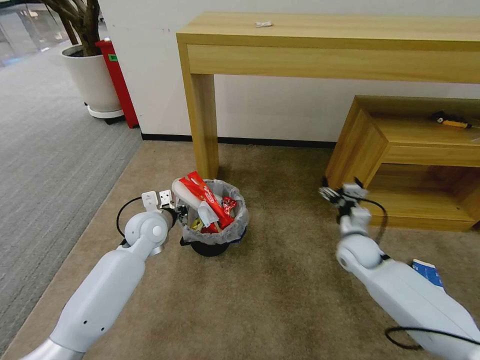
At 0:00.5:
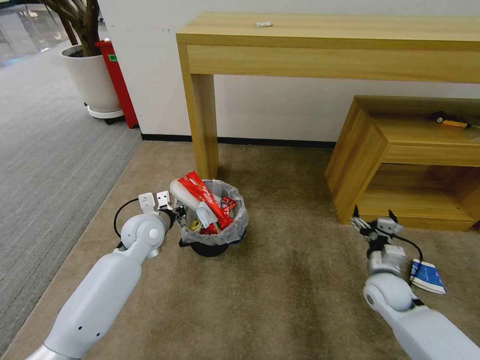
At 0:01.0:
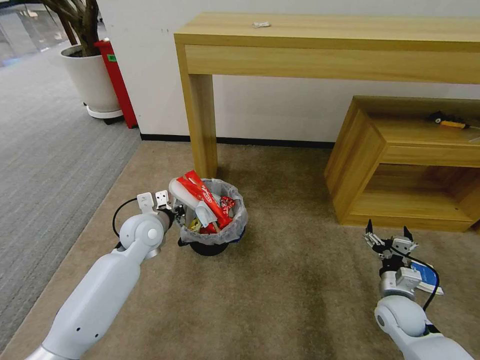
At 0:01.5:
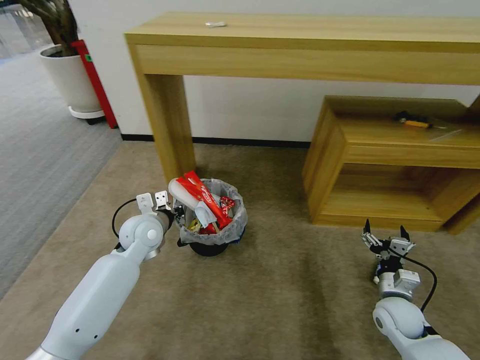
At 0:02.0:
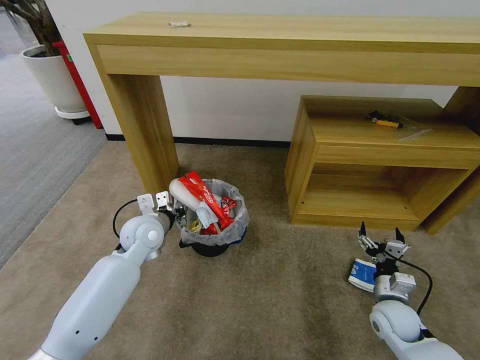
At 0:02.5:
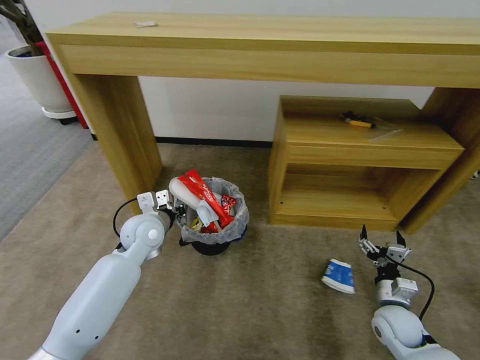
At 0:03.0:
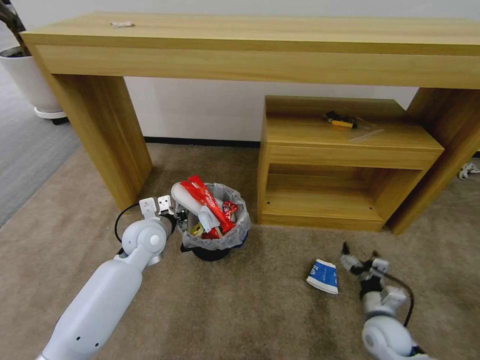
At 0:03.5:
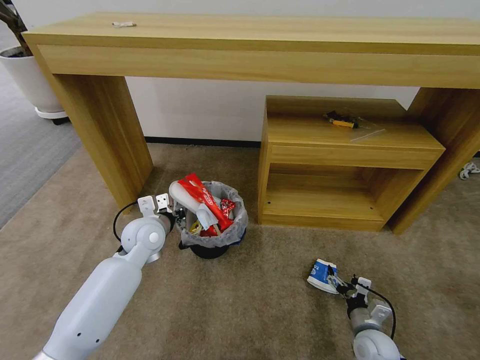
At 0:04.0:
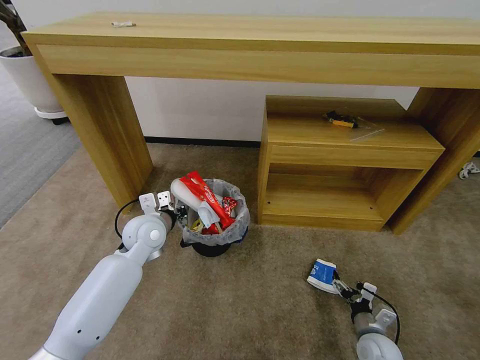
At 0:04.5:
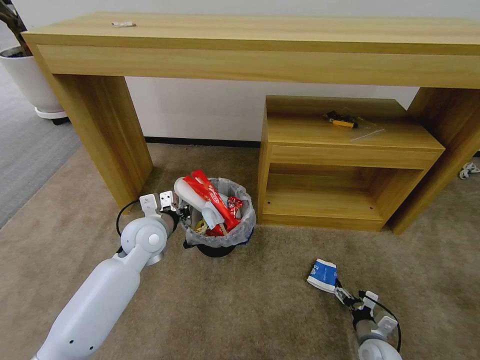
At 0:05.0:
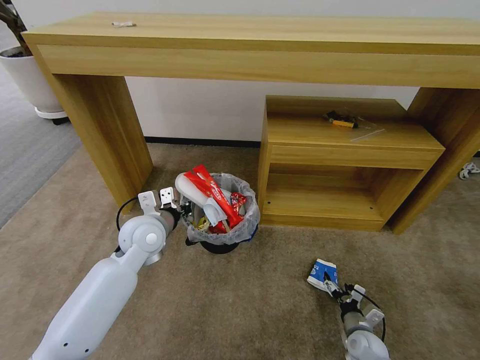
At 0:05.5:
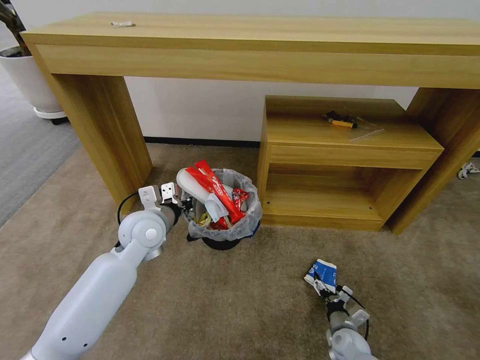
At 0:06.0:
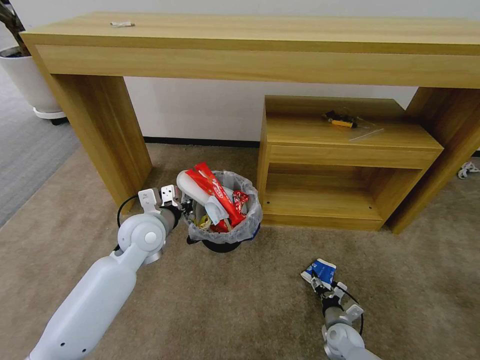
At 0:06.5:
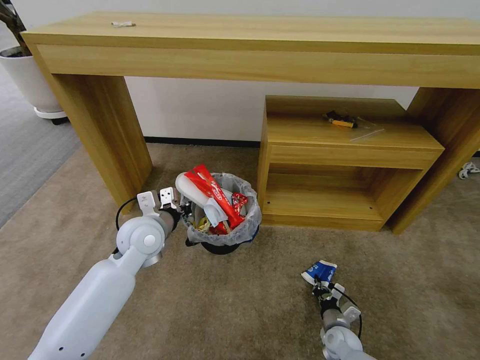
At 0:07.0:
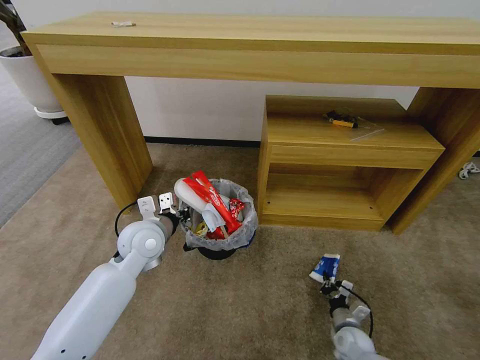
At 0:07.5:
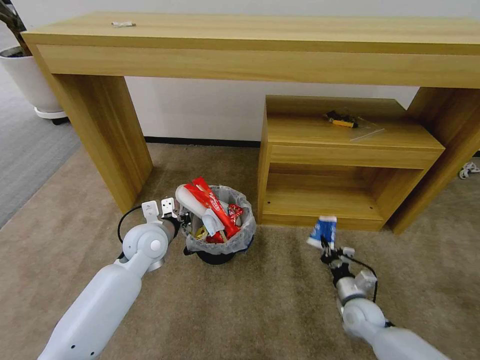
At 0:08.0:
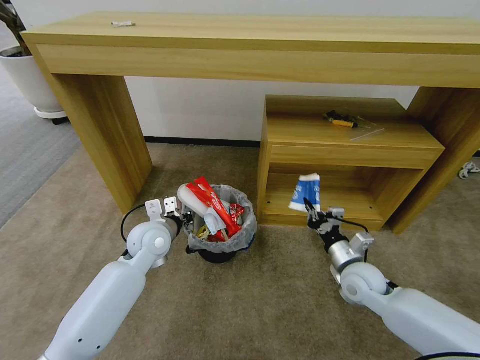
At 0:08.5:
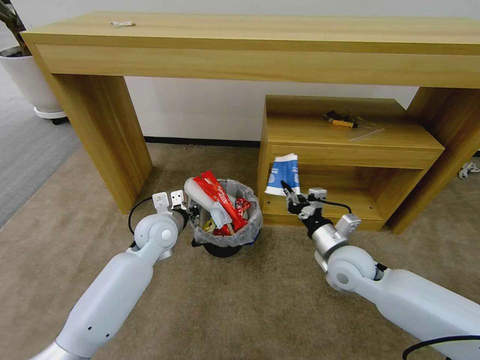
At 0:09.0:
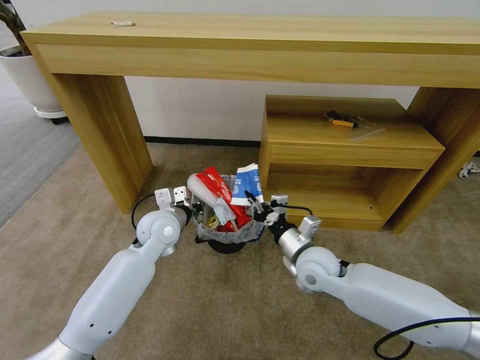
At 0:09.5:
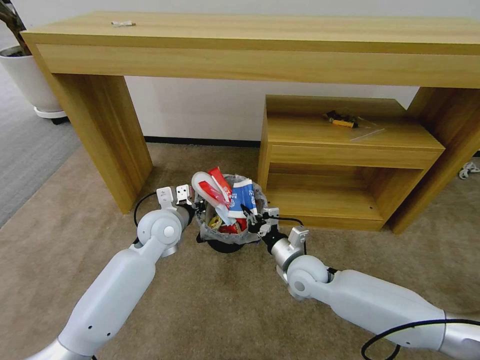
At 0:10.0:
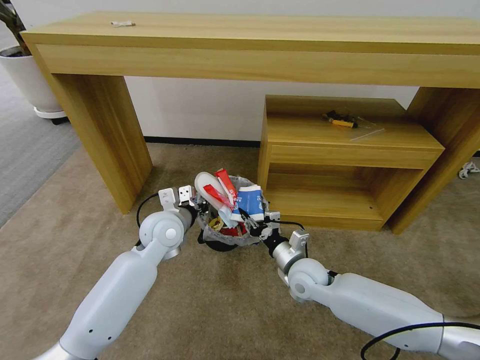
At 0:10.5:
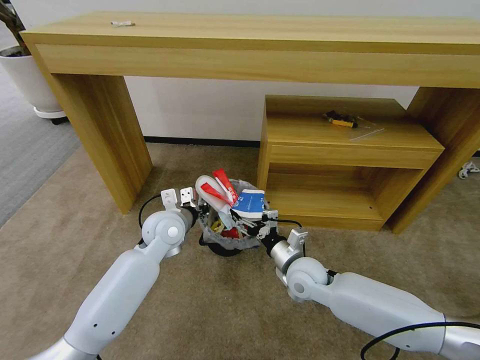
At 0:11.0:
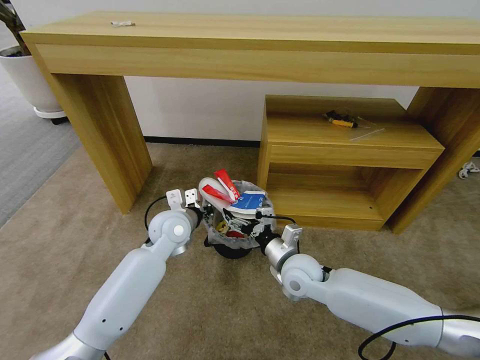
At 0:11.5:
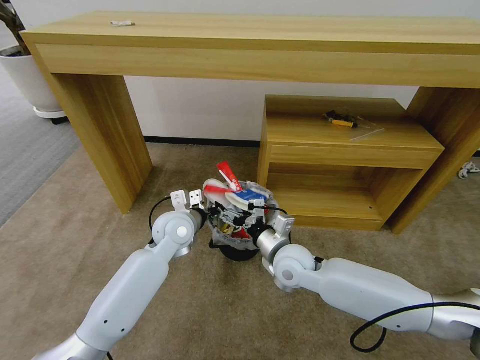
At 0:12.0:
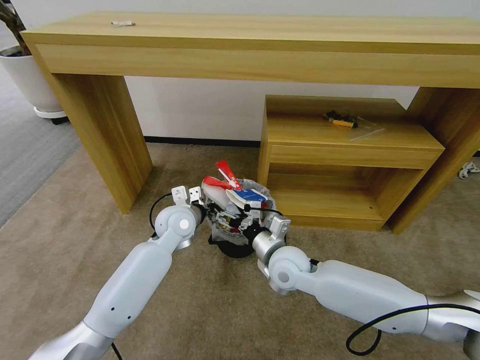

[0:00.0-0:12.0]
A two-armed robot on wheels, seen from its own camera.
Task of the whole recording: Pick up the trash bin and place the garbage on the floor into it.
0:00.0 to 0:02.0: The right gripper goes approximately 20 cm backward, downward and to the right.
0:02.0 to 0:04.0: The right gripper travels downward and backward by approximately 10 cm.
0:04.0 to 0:06.0: The right gripper shifts roughly 10 cm downward; the left gripper shifts by some 5 cm.
0:06.0 to 0:08.0: The right gripper shifts roughly 20 cm upward, and closes.
0:08.0 to 0:10.0: The right gripper goes some 15 cm to the left.
0:10.0 to 0:12.0: The right gripper moves upward and to the left, approximately 10 cm, and opens.

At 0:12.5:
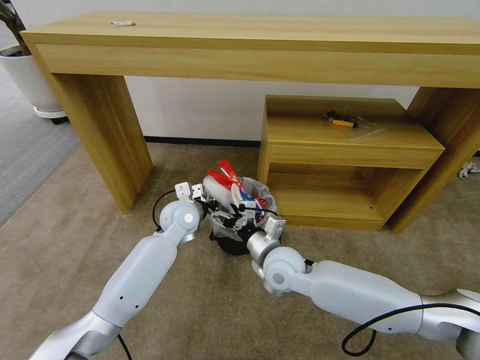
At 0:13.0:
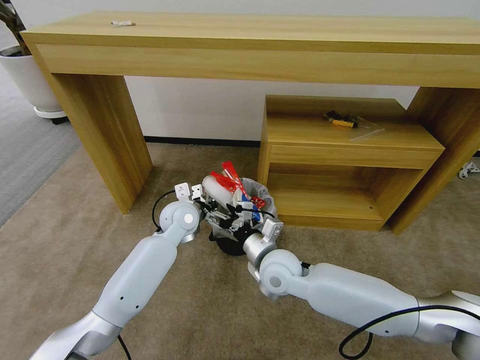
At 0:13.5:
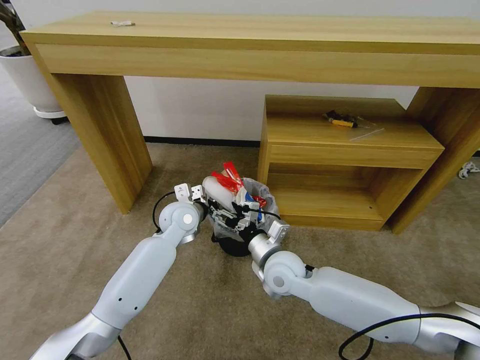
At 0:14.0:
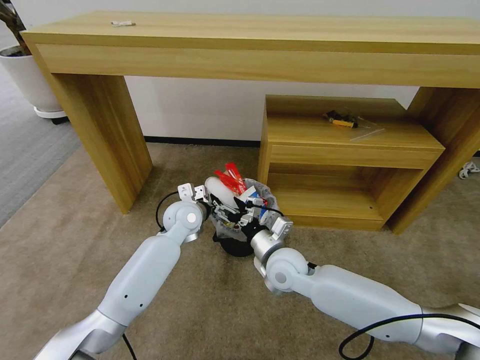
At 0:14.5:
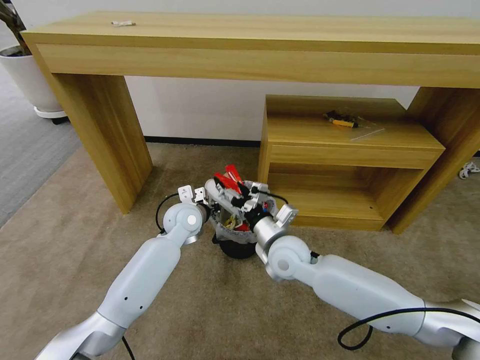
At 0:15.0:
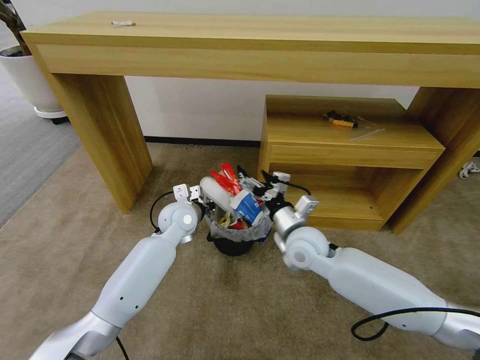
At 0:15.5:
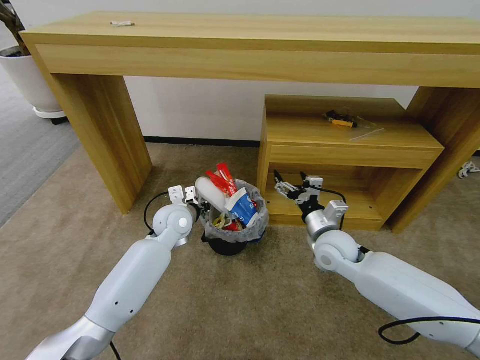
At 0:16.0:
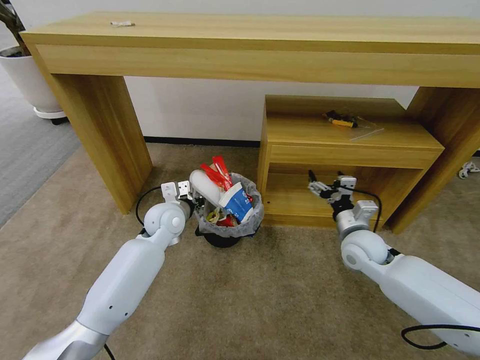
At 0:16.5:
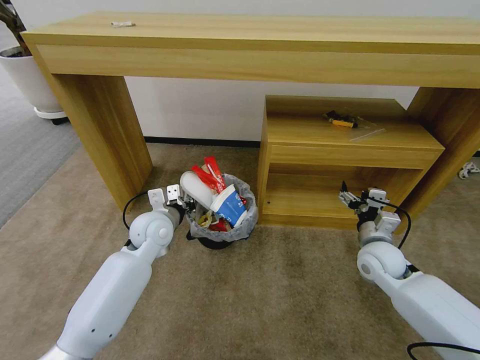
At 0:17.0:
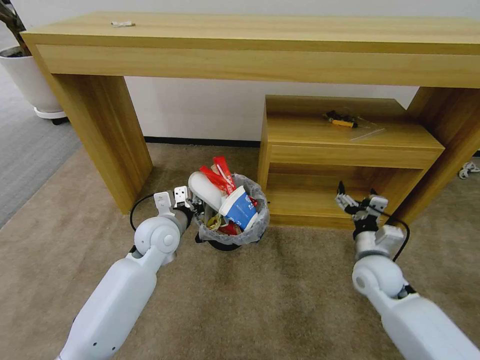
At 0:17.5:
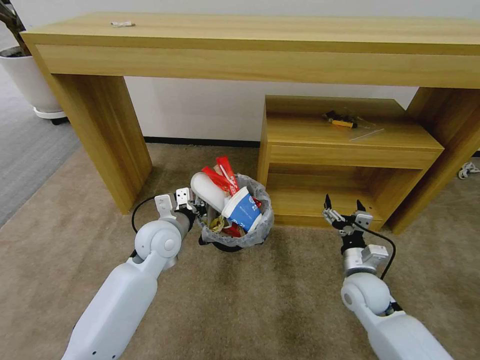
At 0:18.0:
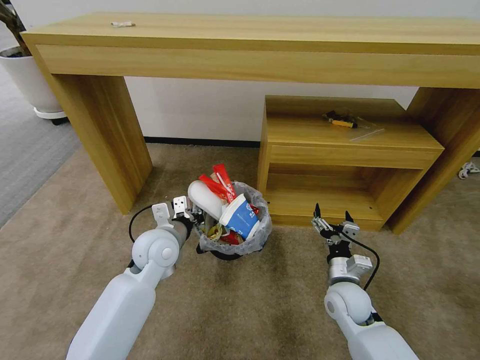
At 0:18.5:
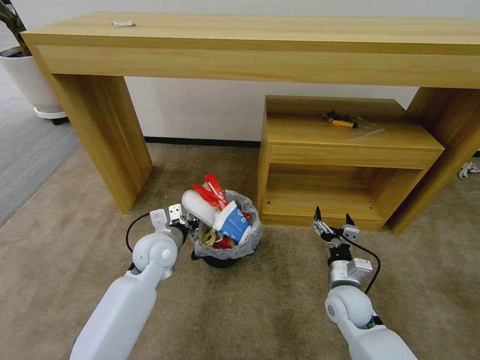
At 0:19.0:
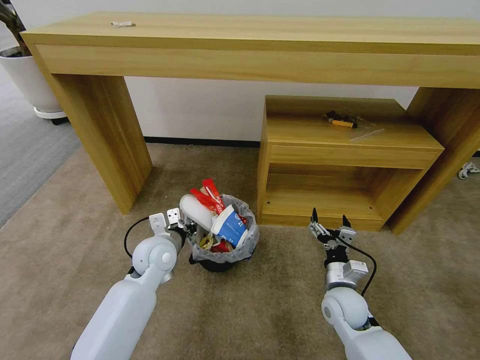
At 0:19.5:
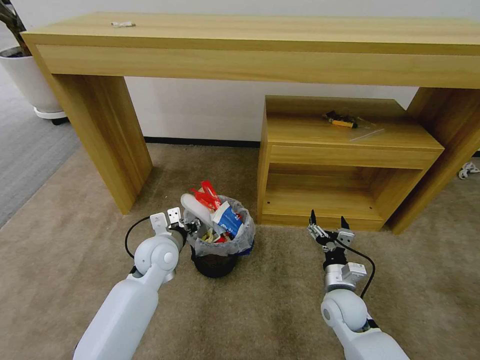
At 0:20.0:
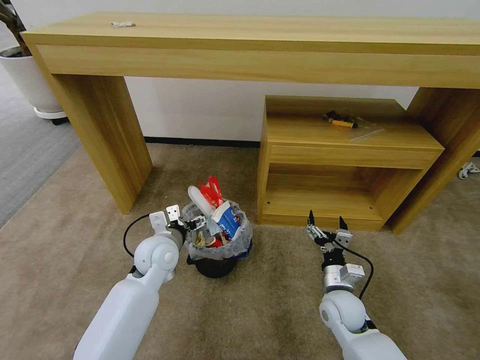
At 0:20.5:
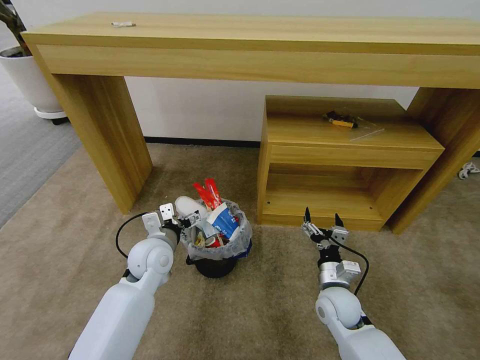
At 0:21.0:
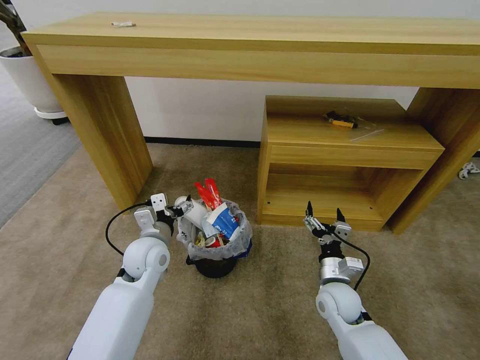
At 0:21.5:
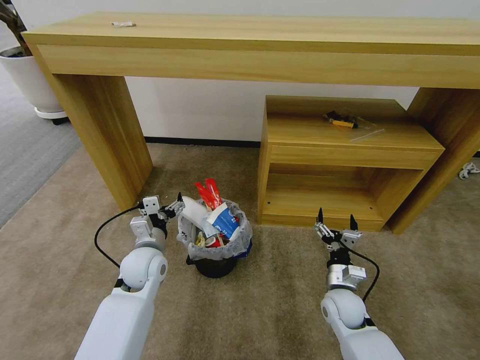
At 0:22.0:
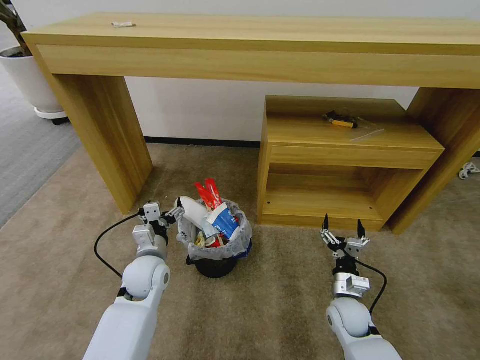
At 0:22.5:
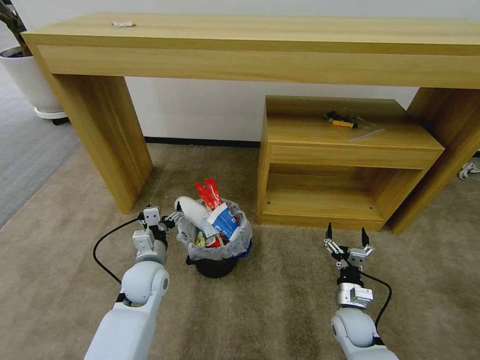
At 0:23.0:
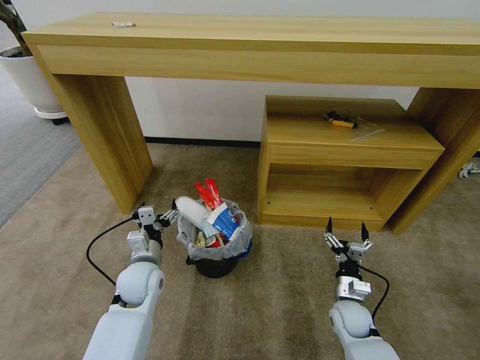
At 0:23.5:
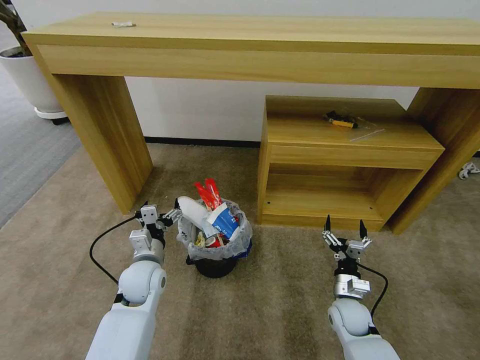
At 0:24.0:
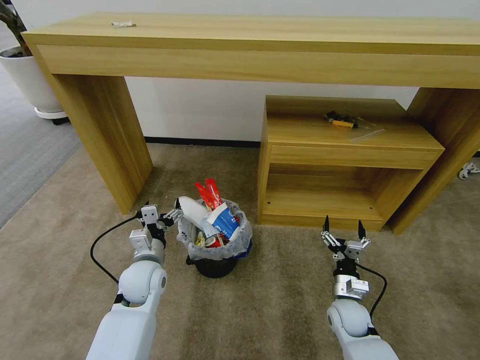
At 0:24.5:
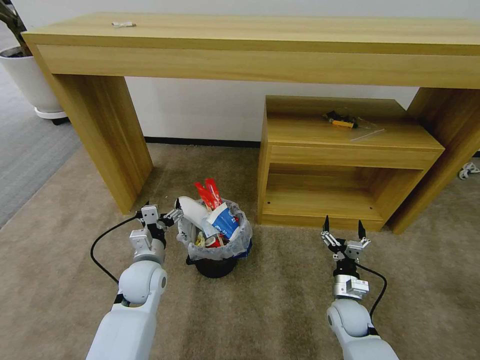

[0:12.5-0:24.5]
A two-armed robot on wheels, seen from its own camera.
Task of the whole recording: Pick up the trash bin and place the garbage on the floor into it.
0:12.5 to 0:14.5: The grippers make only small movements.
0:14.5 to 0:16.5: The right gripper travels to the right by some 25 cm, while the left gripper heads to the left, covering roughly 5 cm.
0:16.5 to 0:18.5: The right gripper heads to the left, downward and backward, covering roughly 15 cm; the left gripper shifts by about 5 cm.
0:18.5 to 0:20.5: The left gripper opens its fingers.
0:20.5 to 0:22.5: The right gripper is displaced downward and to the right by about 10 cm; the left gripper moves downward, some 5 cm.
0:22.5 to 0:24.5: The grippers make only small movements.
